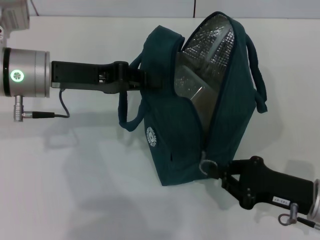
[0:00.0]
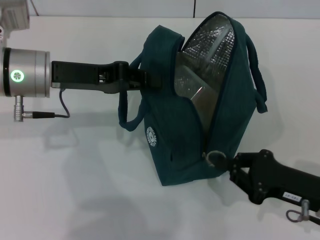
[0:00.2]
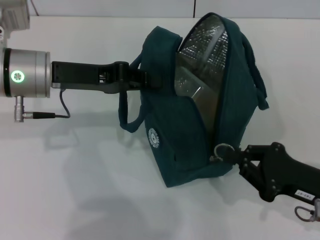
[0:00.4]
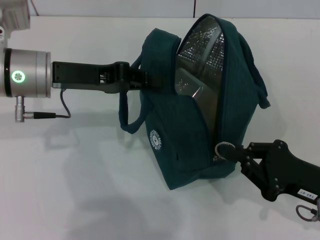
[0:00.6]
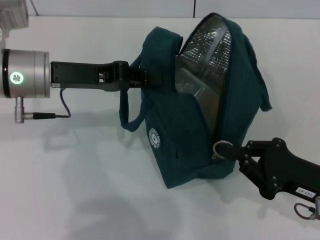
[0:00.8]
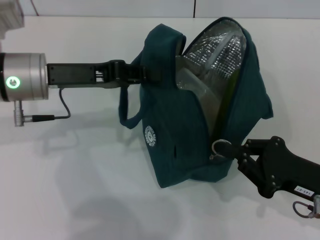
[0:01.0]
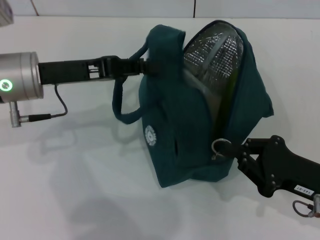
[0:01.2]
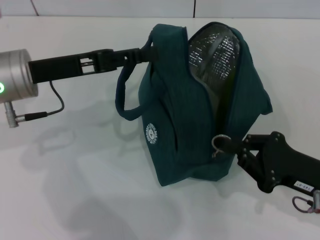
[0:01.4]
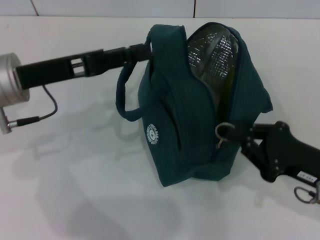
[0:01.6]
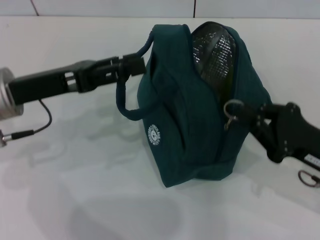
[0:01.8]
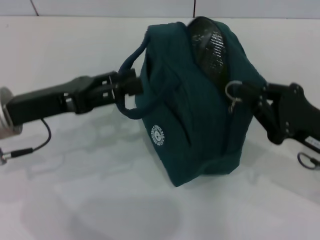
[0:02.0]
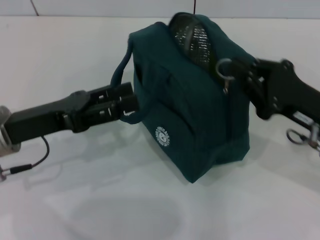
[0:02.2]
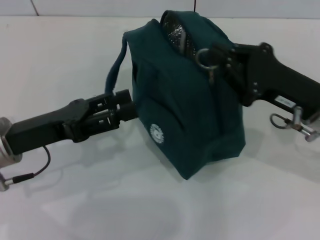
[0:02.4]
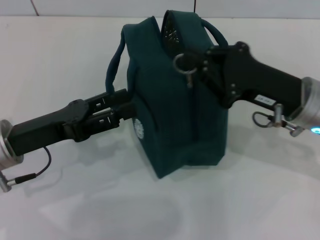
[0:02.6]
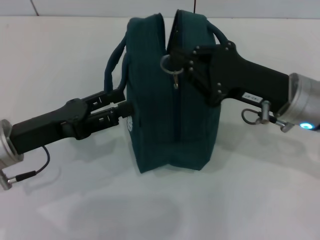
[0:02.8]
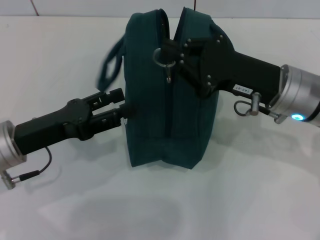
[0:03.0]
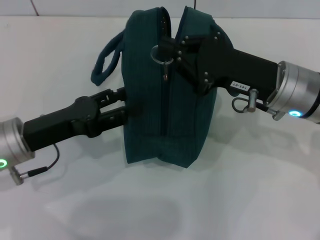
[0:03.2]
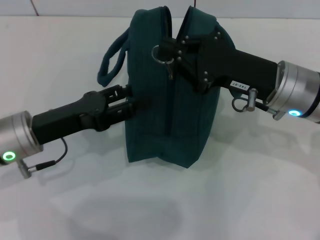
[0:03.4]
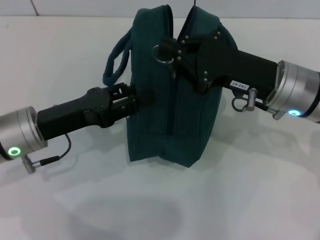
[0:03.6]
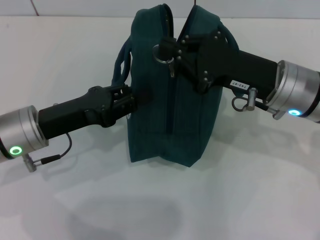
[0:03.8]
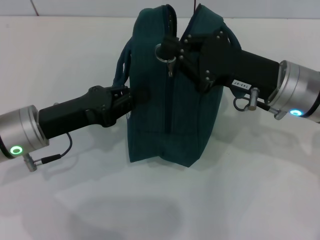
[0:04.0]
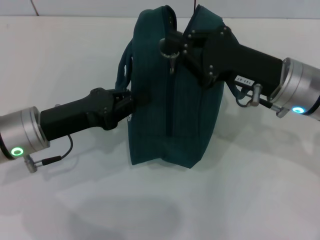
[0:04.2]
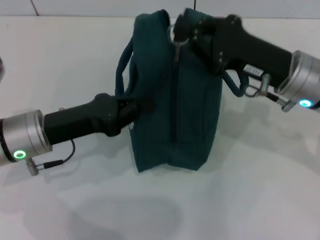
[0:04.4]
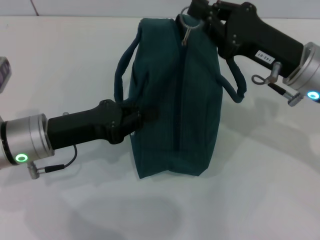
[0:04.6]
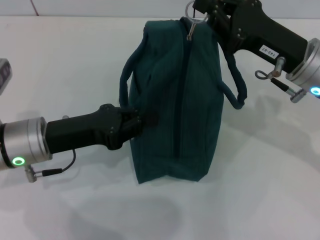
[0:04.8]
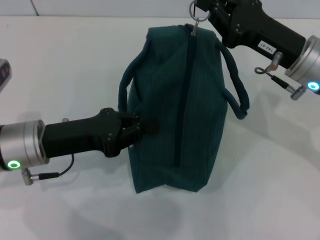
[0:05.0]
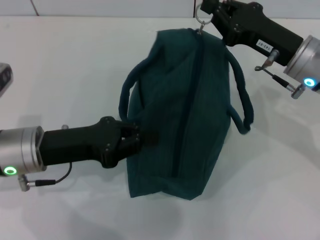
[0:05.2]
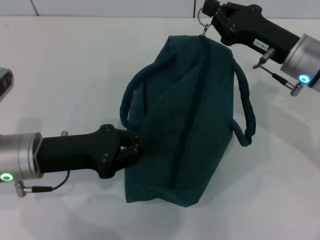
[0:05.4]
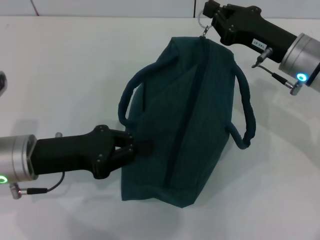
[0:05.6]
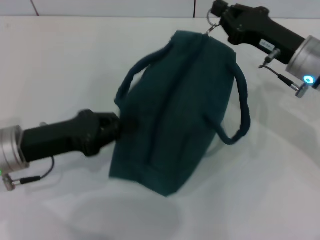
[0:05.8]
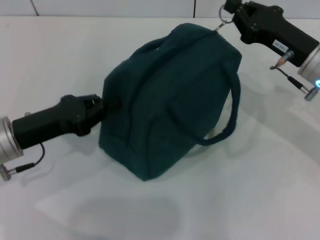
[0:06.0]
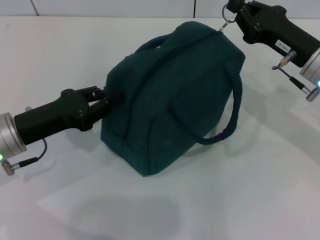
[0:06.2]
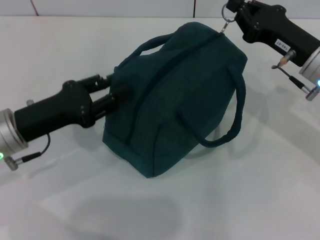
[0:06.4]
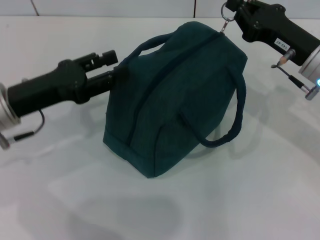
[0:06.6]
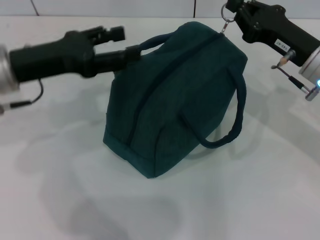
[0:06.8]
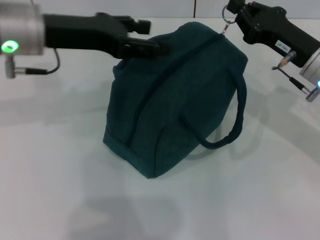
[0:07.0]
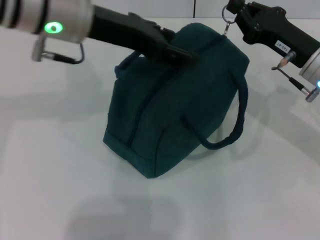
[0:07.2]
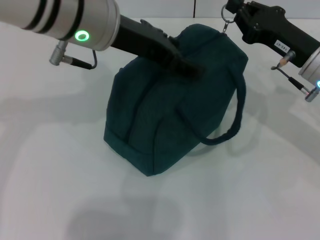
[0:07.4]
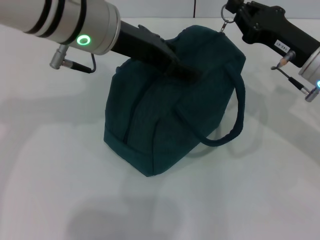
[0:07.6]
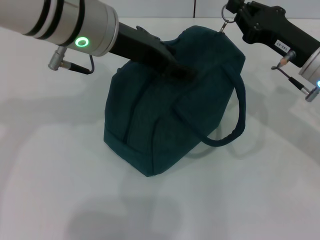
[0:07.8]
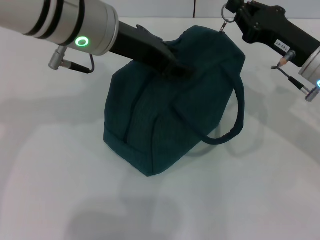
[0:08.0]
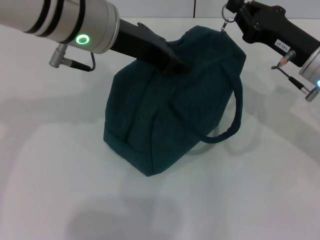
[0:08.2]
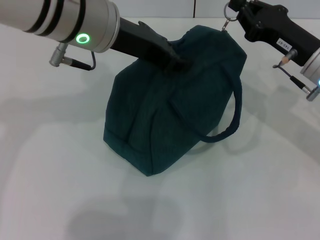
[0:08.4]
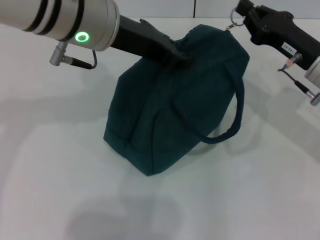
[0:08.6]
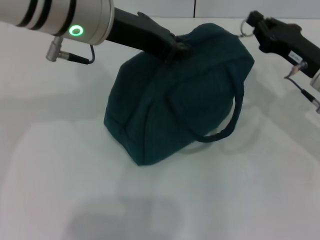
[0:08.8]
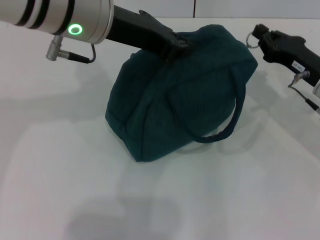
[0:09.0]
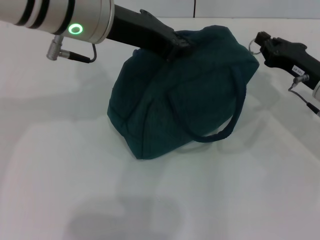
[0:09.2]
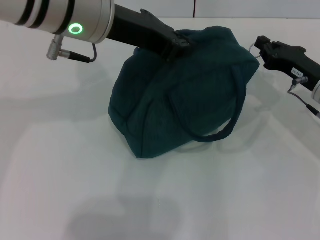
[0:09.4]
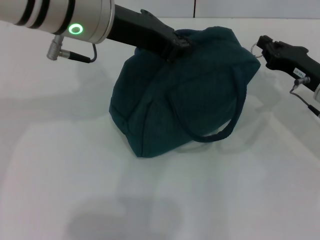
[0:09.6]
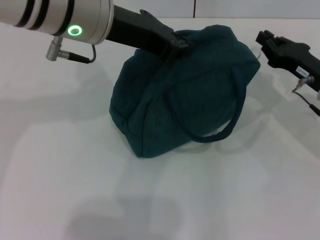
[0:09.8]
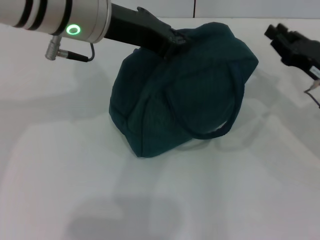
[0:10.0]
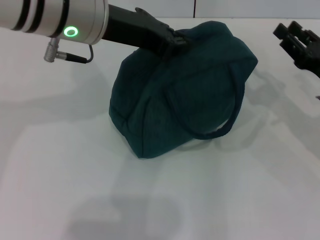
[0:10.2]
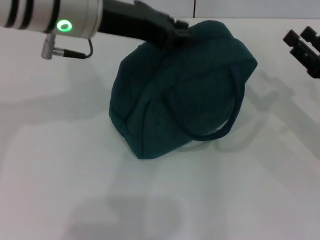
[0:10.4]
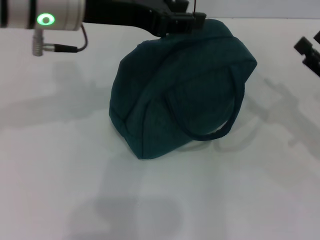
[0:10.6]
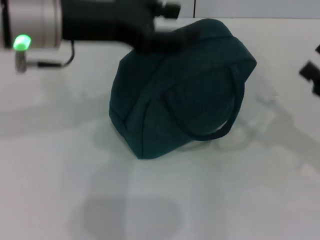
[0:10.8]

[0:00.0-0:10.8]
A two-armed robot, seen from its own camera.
Step, 0:01.6 to 0:09.6: Zip up the lunch bag with your right hand.
Step, 0:10.0 to 0:10.6: Pick up the lunch box with your right hand.
0:00.0 to 0:01.6: The left gripper opens.
0:01.6 to 0:03.0: The left gripper shifts roughly 10 cm downward and backward. Meanwhile the right gripper heads forward, to the left and upward, covering some 15 cm.
0:03.0 to 0:04.6: The left gripper closes up.
0:06.2 to 0:07.8: The left gripper travels upward, to the right and forward by approximately 25 cm, and opens.
0:07.8 to 0:09.2: The right gripper moves roughly 5 cm. Meanwhile the left gripper closes up.
0:09.2 to 0:10.8: The left gripper changes place by about 5 cm, and opens; the right gripper goes approximately 10 cm backward and to the right, and opens its fingers.

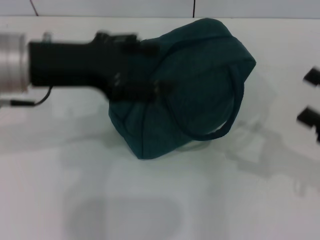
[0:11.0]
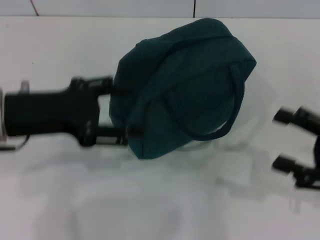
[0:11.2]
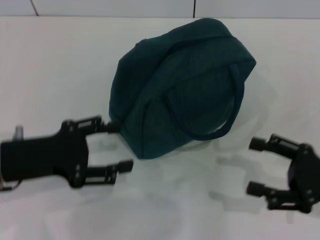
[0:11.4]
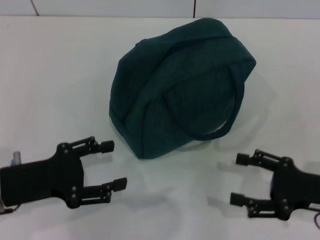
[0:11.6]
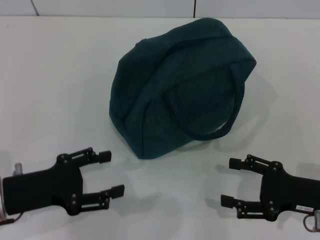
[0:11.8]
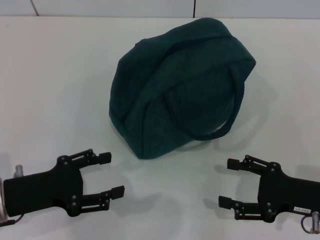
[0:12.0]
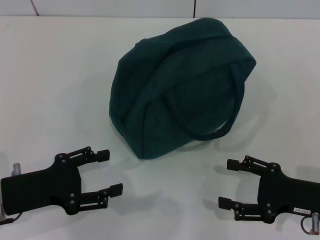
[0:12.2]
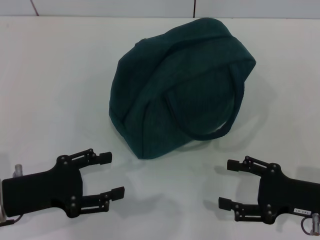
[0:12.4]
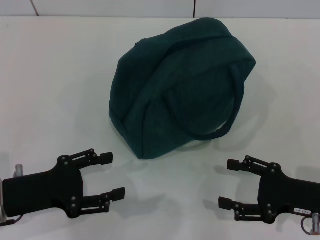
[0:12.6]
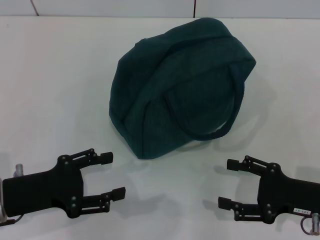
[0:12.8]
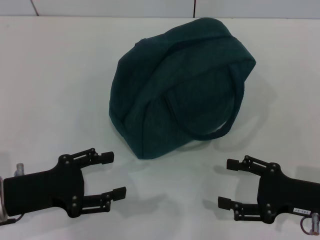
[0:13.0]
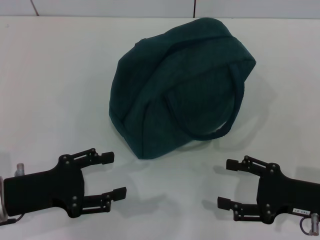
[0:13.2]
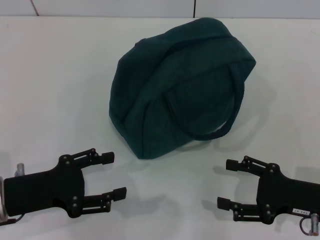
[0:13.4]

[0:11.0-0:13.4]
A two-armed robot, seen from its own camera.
0:11.0 to 0:12.2: The left gripper shifts about 20 cm downward, backward and to the left, while the right gripper travels downward and to the left by approximately 10 cm.
0:12.2 to 0:13.4: The two grippers keep their place.
